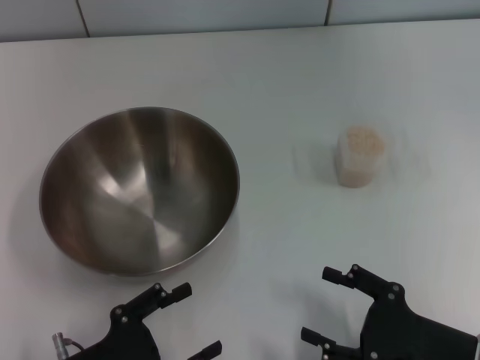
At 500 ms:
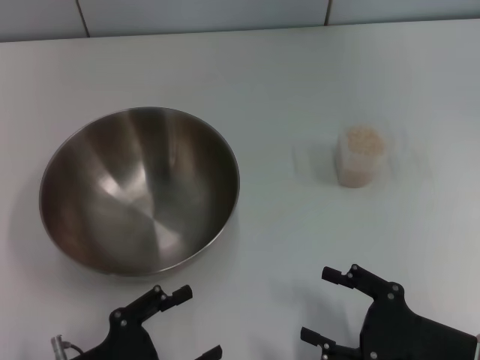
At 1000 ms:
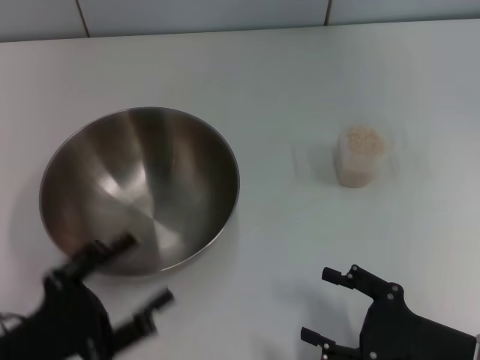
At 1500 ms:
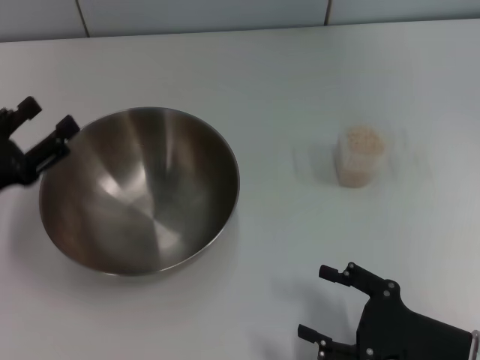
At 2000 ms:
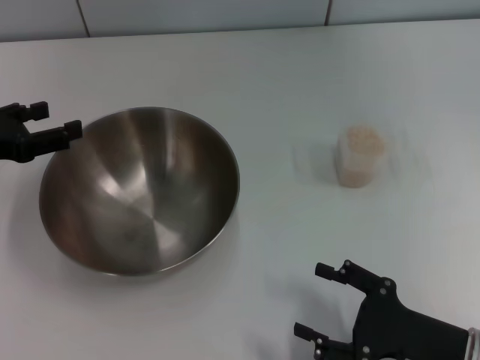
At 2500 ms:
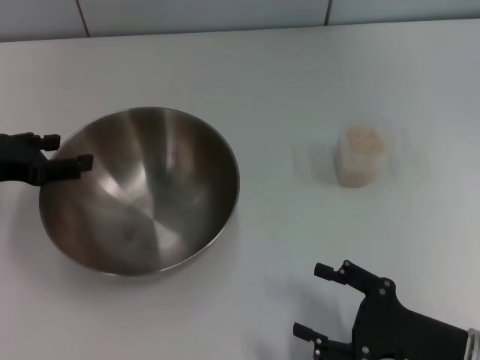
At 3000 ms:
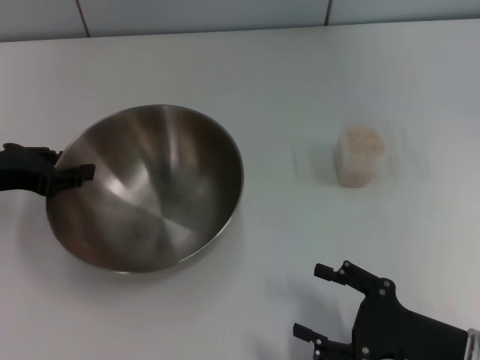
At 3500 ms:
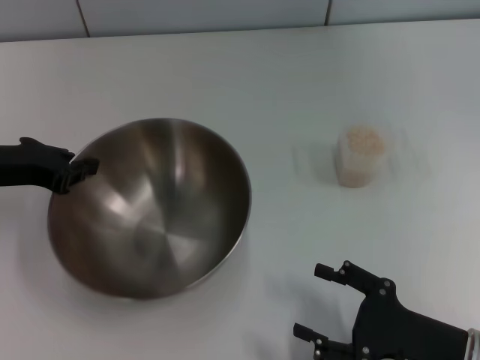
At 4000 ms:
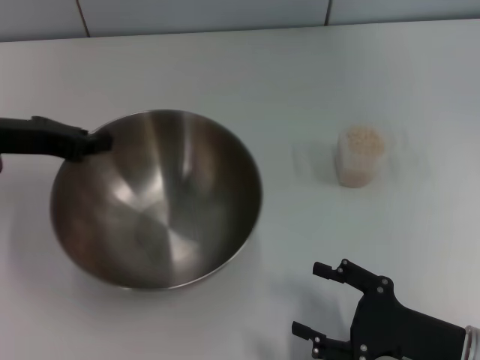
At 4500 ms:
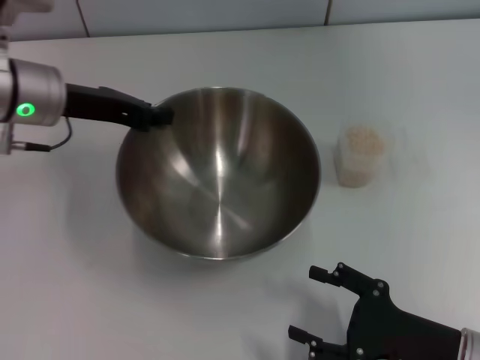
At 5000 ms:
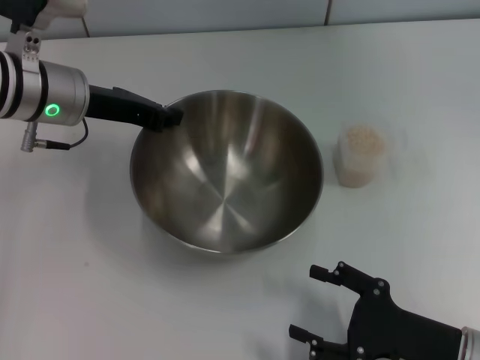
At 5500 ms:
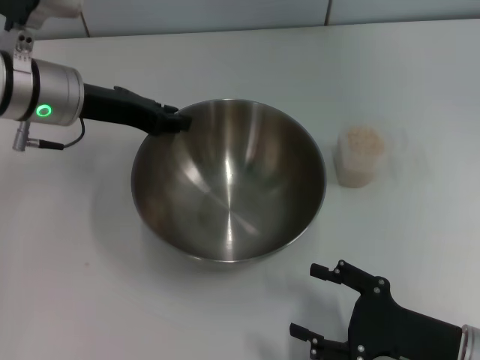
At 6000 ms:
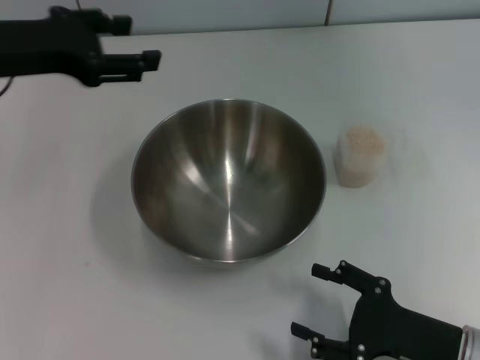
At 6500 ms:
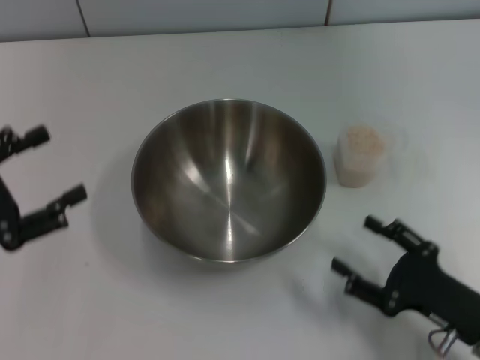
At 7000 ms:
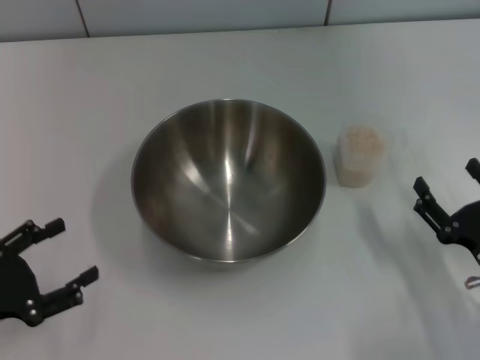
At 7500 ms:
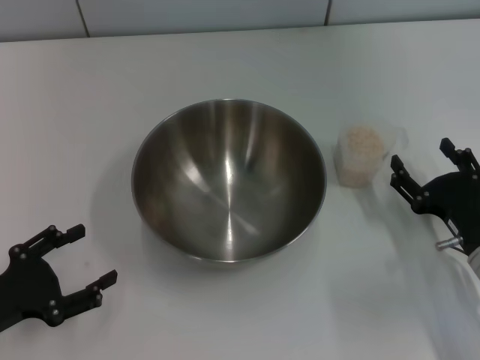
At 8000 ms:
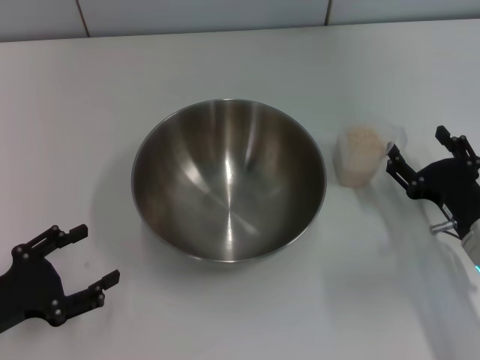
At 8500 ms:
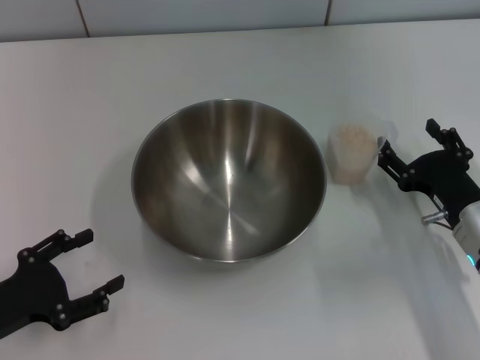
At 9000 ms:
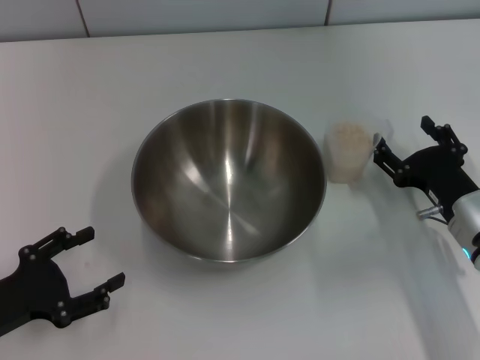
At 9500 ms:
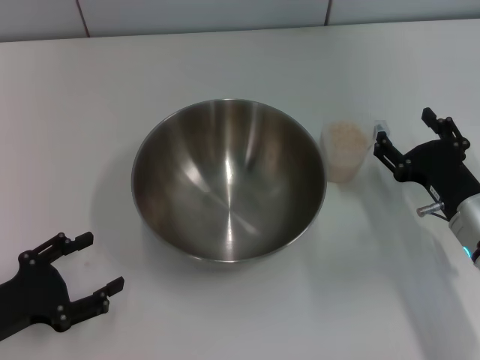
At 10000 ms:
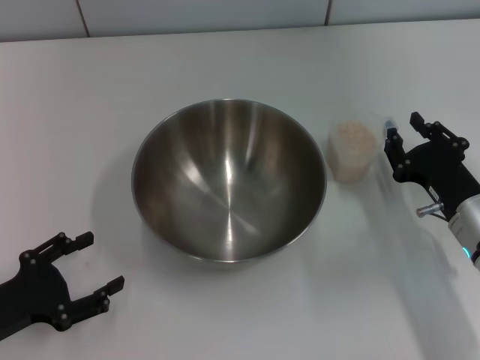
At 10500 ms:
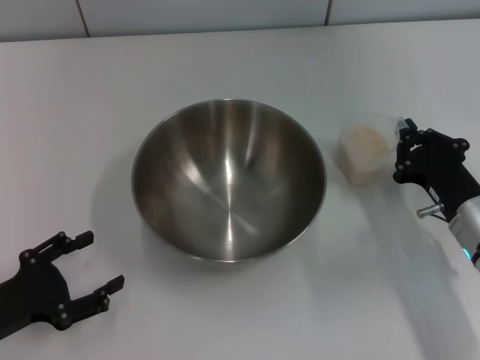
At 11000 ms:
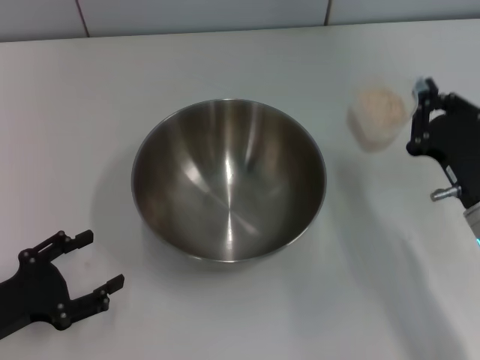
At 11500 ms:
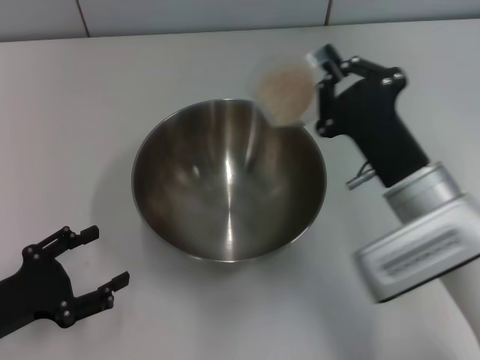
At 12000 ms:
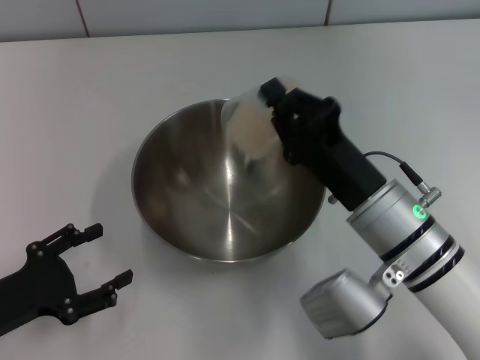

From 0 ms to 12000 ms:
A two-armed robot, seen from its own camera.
Task of the whole recording: Place the bowl in the middle of the table with one hand and pour the rice from the grain cup into it with the other hand.
Step, from 0 ms to 3500 ms: Pick up the bowl with the left gripper.
Step, from 4000 ms to 6000 ms: Place the bowl in the center of view with the left gripper.
Step, from 6500 ms to 10500 ms: Pick up the cup with rice in it with the right gripper.
From 0 ms to 2000 ms: The left gripper moves forward, upward and to the left, about 25 cm.
From 2000 ms to 4000 ms: The left gripper shifts roughly 5 cm to the right, and closes its fingers.
From 4000 ms to 6000 ms: The left gripper heads upward, covering some 5 cm, travels to the right and back again, roughly 10 cm each way, and opens its fingers.
From 6000 ms to 8000 ms: The left gripper travels downward and backward by about 25 cm, while the right gripper is displaced forward by roughly 10 cm.
From 8000 ms to 10000 ms: The right gripper closes up.
From 10000 ms to 12000 ms: The right gripper is displaced to the left and upward by roughly 10 cm, and closes its fingers.

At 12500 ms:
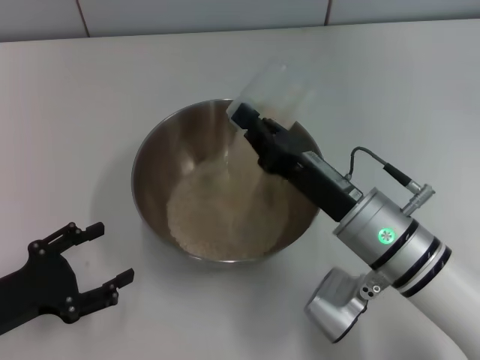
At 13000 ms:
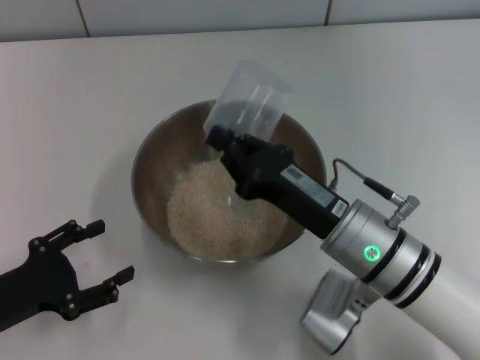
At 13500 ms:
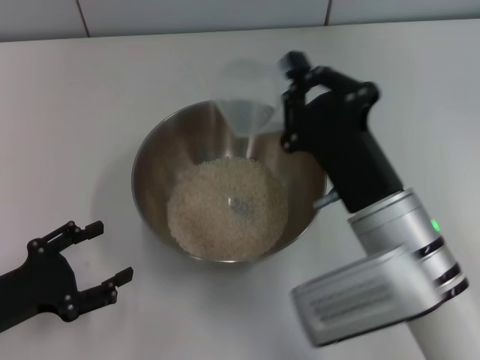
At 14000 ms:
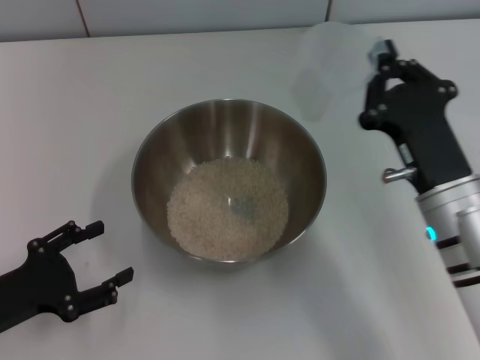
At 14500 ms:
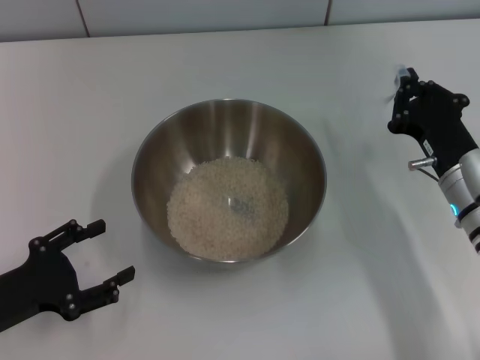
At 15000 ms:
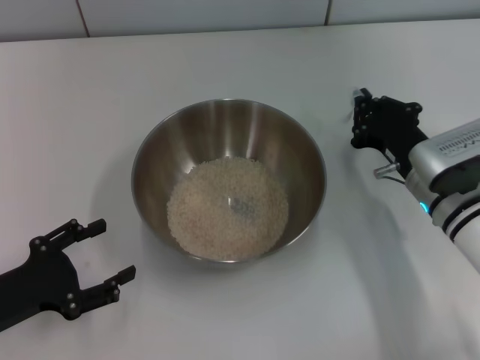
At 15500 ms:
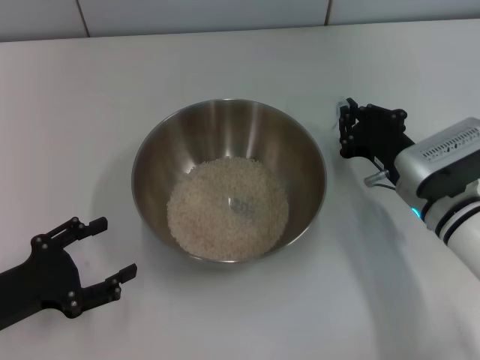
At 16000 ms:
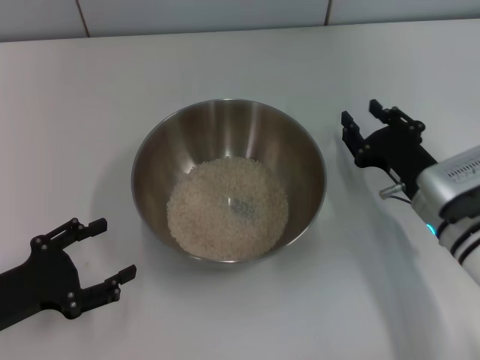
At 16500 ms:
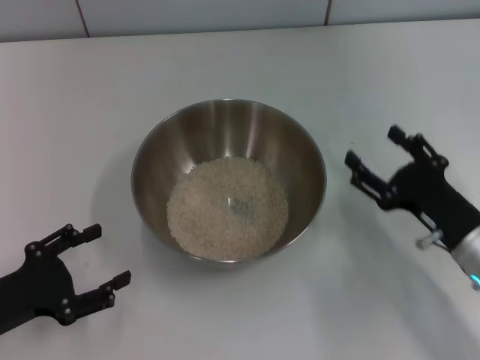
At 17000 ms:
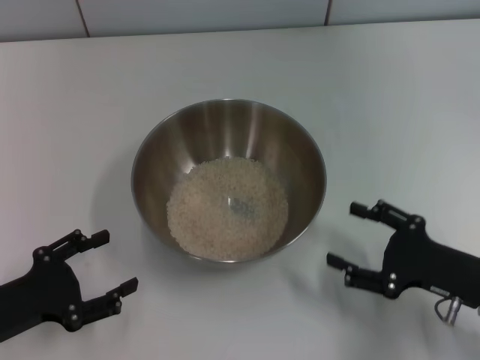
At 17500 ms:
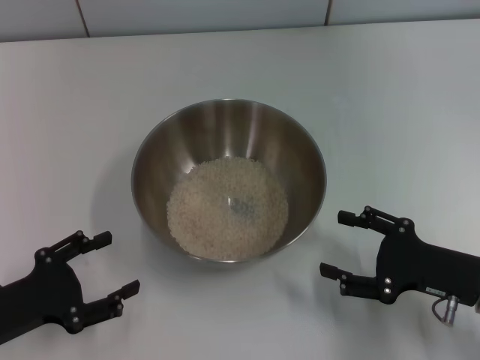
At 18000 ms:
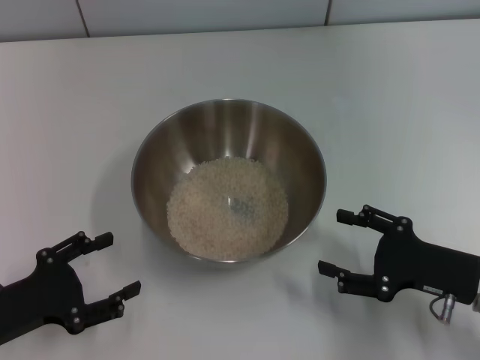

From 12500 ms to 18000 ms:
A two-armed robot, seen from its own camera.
Task of the whole recording: Place the bowl in the middle of the table with one hand and pour the rice from the grain cup into it with the other hand.
Step, from 12500 ms to 14000 ms: Pour the rice from the cup into the bowl with the right gripper.
Step, from 14500 ms to 16500 ms: Place the cup on the table with the right gripper.
From 12500 ms to 14500 ms: The right gripper travels to the right by about 10 cm.
From 14500 ms to 16000 ms: The grippers stay close to where they were, moving slightly.
From 16000 ms to 18000 ms: The right gripper is displaced backward and to the right by some 10 cm, and opens up.

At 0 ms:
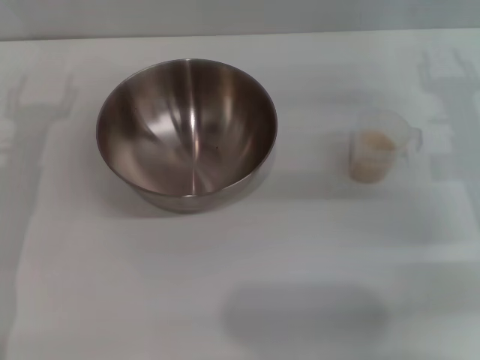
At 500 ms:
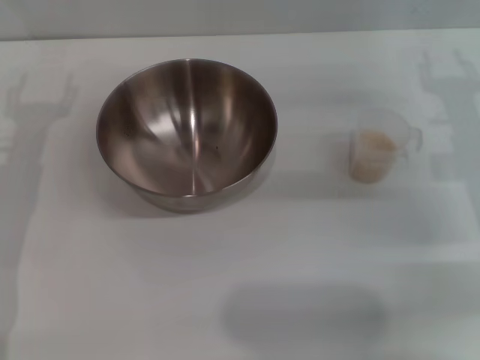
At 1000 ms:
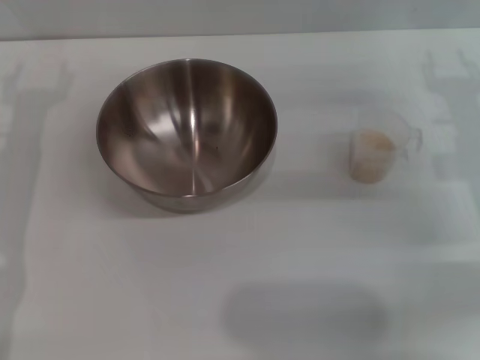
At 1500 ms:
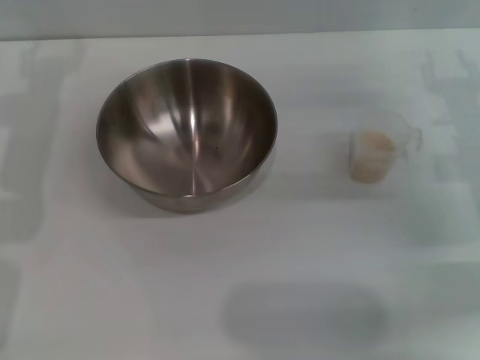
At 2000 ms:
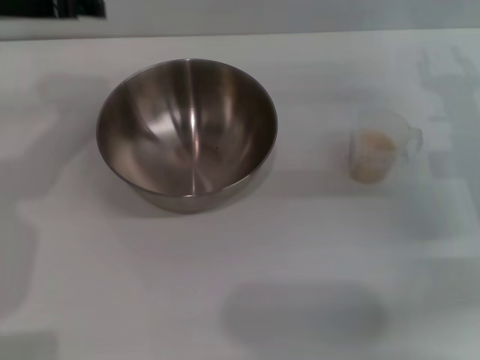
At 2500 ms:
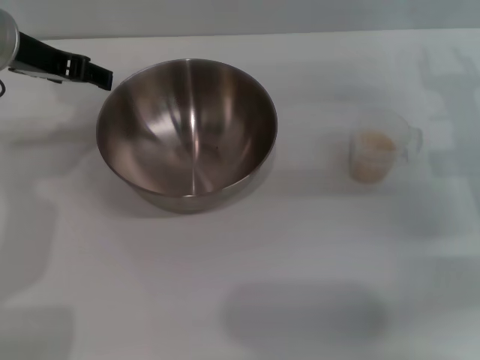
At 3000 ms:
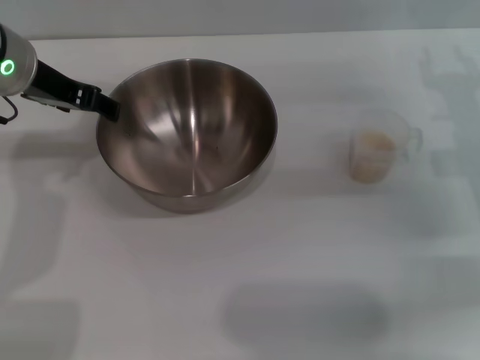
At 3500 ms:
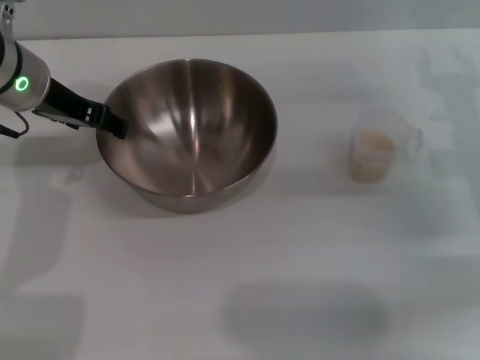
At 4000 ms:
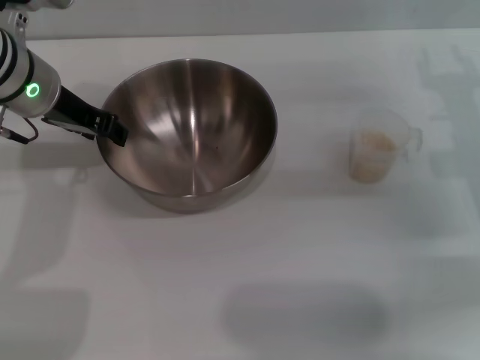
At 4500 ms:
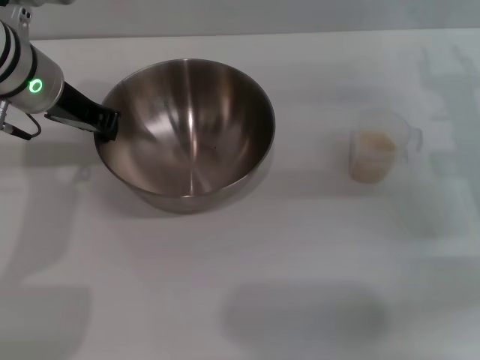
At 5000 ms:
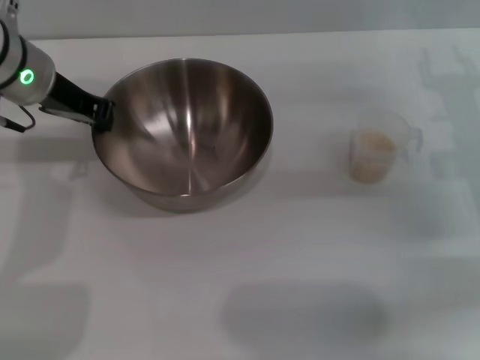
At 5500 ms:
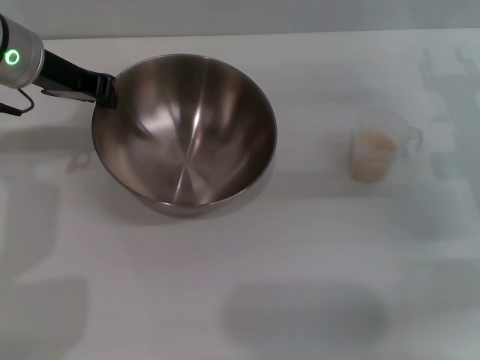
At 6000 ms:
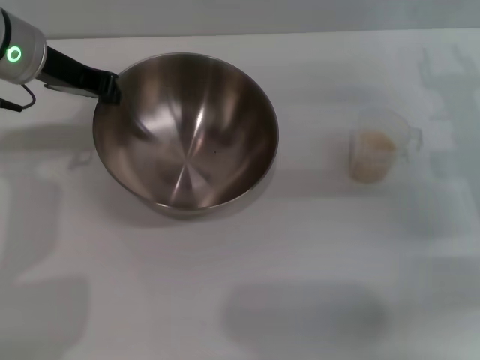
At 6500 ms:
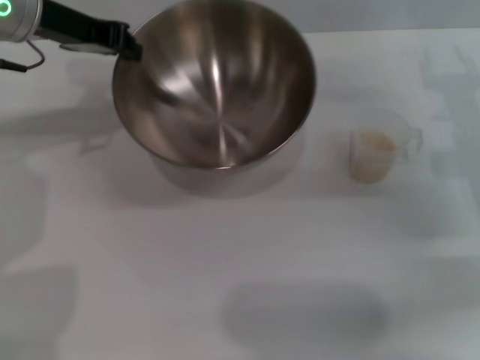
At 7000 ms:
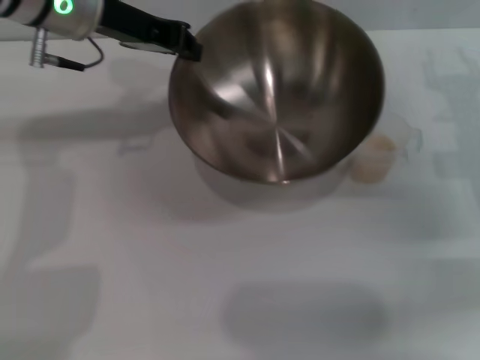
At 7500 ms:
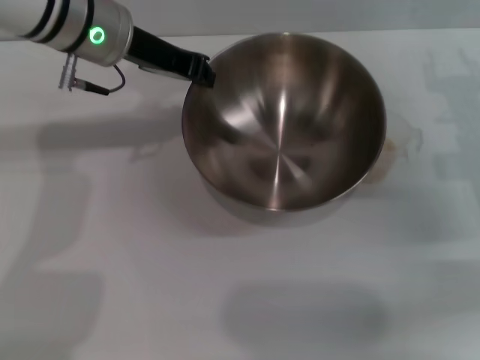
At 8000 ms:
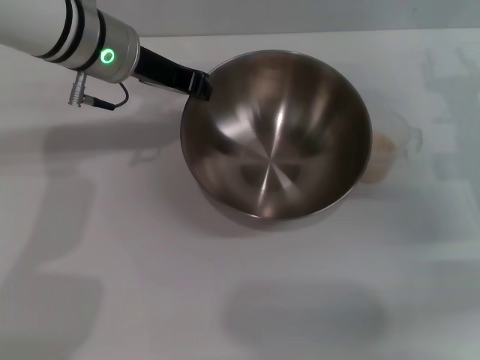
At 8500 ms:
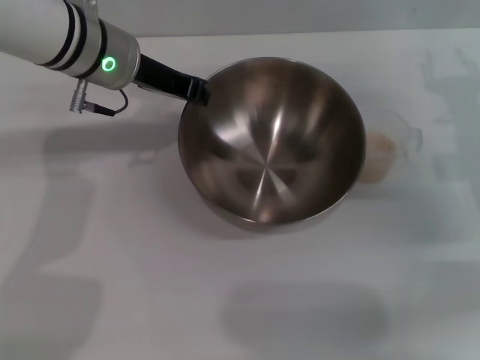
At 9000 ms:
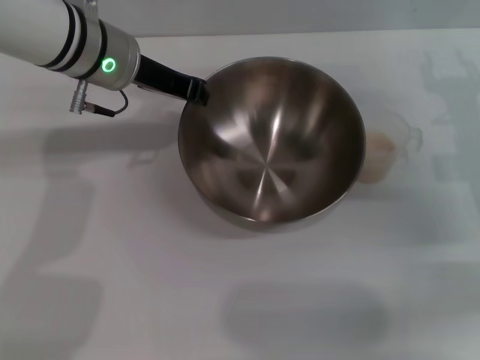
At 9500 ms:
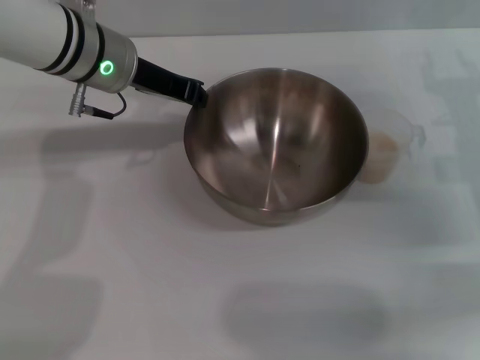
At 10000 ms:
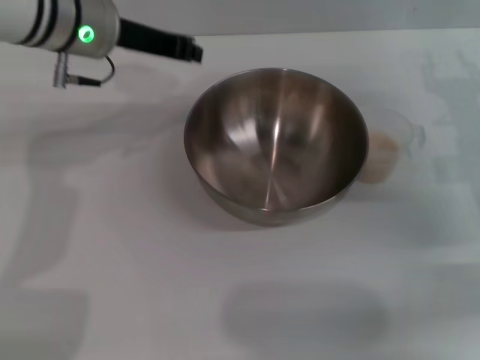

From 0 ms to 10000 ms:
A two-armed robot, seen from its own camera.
Task of the whole recording: Place the bowl in the middle of the table with one hand and pour the rice from the grain cup into it with the other hand.
Step, from 0 ms to 6000 ms: Pick up the bowl with the left gripper.
Step, from 6500 ms to 10000 ms: Place the bowl in the center of view with the left gripper.
From 0 ms to 2000 ms: The left gripper heads upward and forward, covering roughly 15 cm.
From 2000 ms to 4000 ms: The left gripper goes approximately 5 cm downward.
From 4000 ms to 6000 ms: The left gripper closes.
From 6000 ms to 8000 ms: The left gripper is displaced to the right by some 5 cm.
From 8000 ms to 10000 ms: There are only small adjustments of the grippers.
